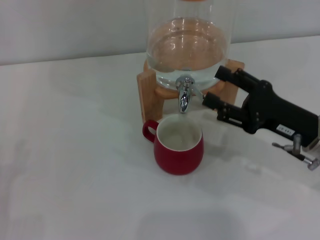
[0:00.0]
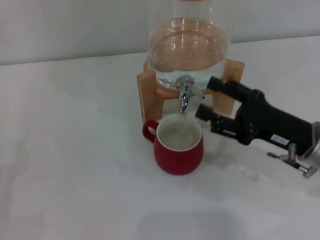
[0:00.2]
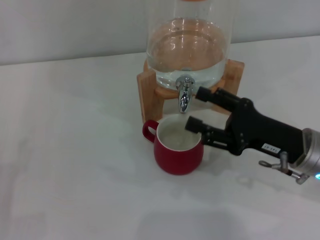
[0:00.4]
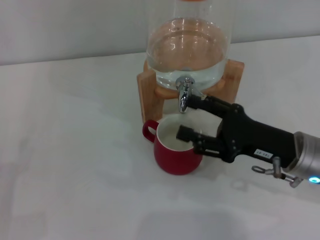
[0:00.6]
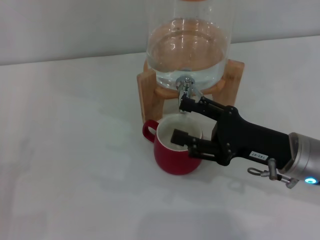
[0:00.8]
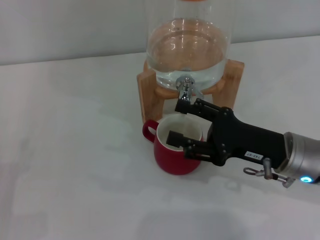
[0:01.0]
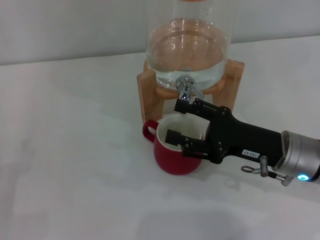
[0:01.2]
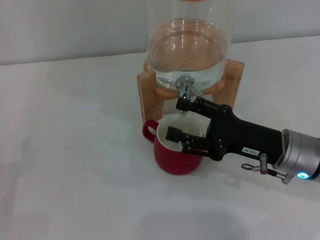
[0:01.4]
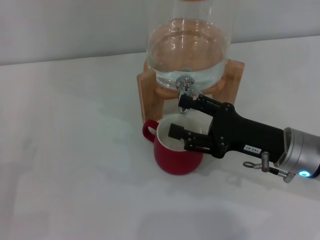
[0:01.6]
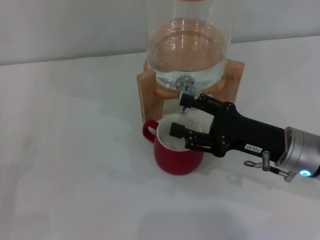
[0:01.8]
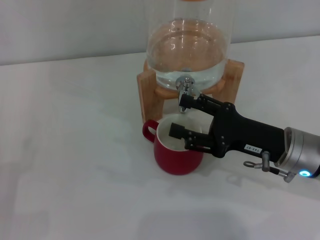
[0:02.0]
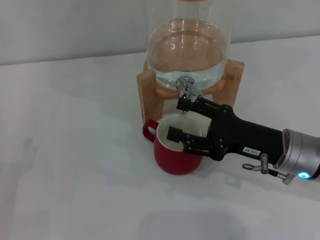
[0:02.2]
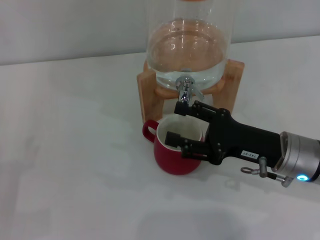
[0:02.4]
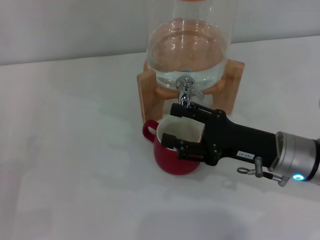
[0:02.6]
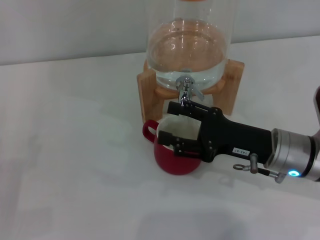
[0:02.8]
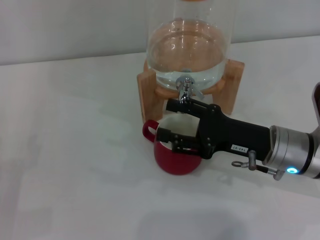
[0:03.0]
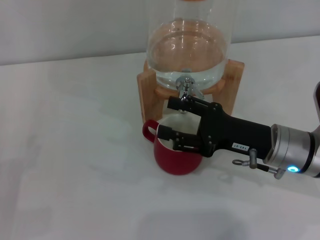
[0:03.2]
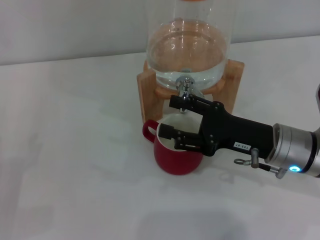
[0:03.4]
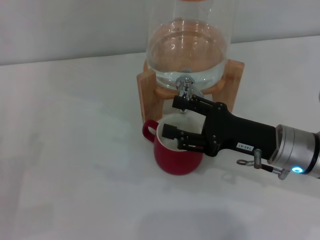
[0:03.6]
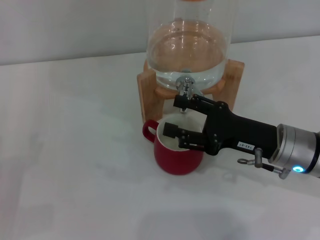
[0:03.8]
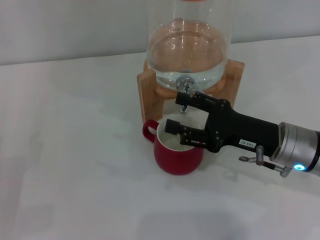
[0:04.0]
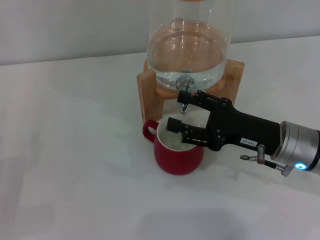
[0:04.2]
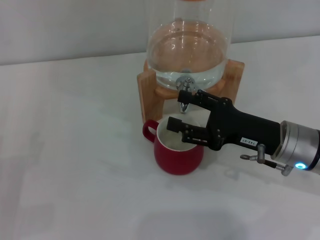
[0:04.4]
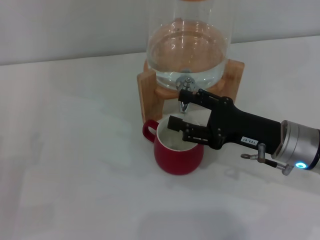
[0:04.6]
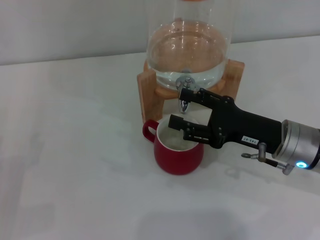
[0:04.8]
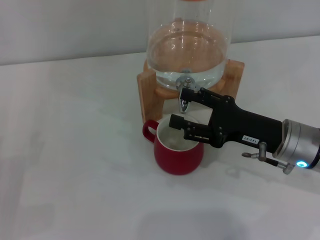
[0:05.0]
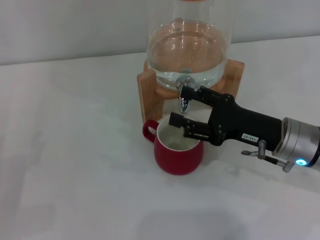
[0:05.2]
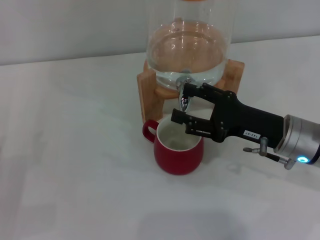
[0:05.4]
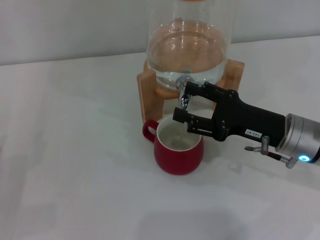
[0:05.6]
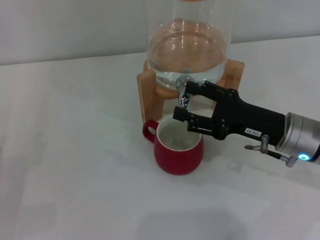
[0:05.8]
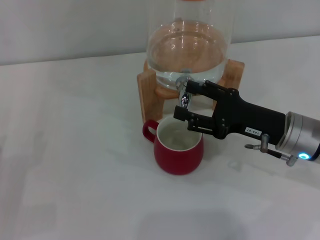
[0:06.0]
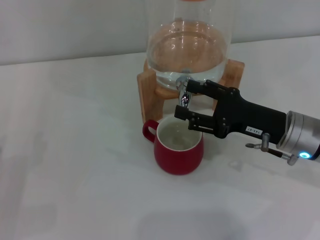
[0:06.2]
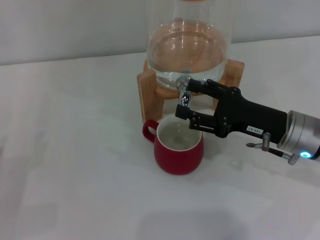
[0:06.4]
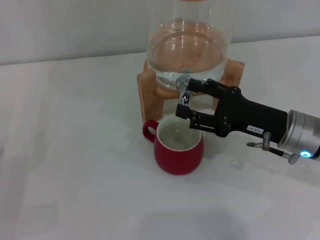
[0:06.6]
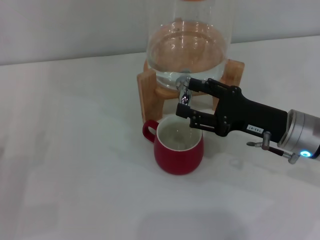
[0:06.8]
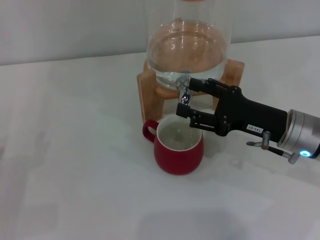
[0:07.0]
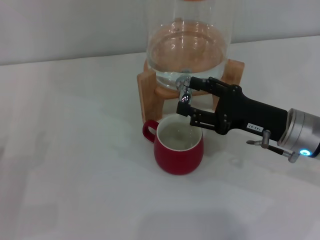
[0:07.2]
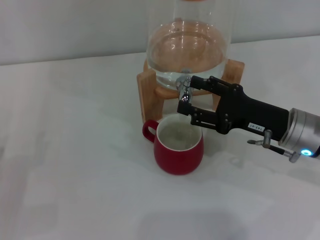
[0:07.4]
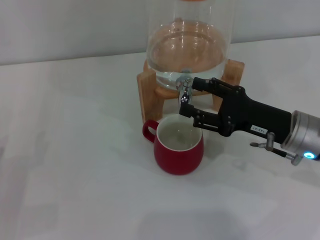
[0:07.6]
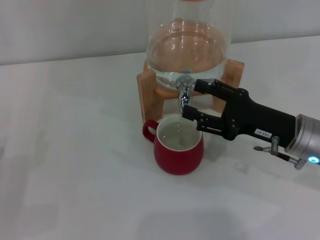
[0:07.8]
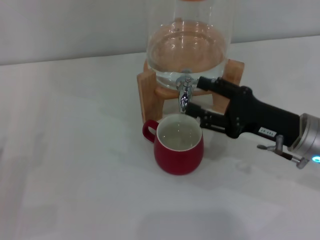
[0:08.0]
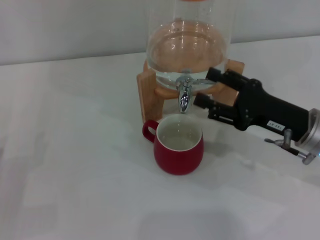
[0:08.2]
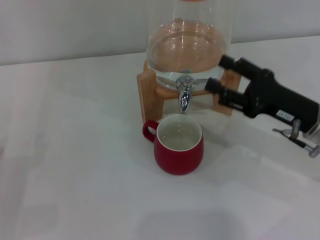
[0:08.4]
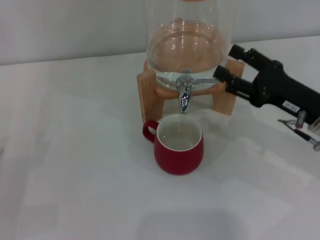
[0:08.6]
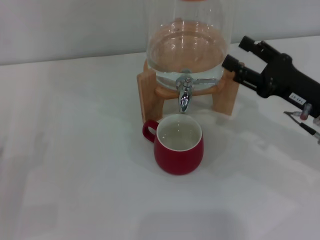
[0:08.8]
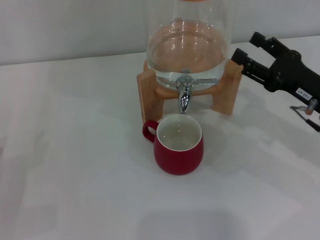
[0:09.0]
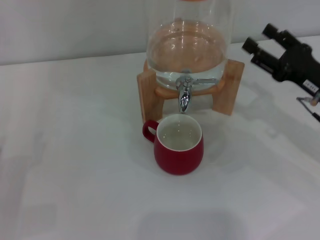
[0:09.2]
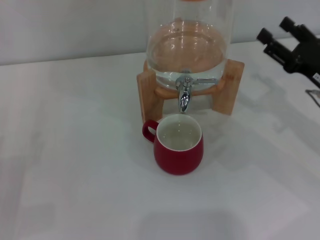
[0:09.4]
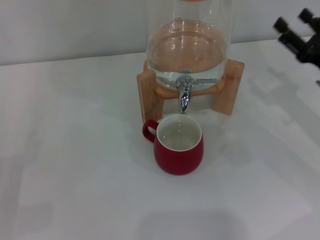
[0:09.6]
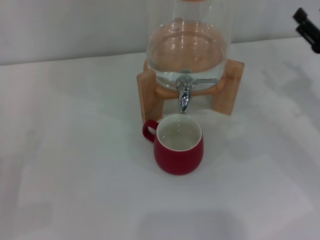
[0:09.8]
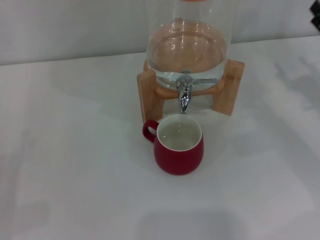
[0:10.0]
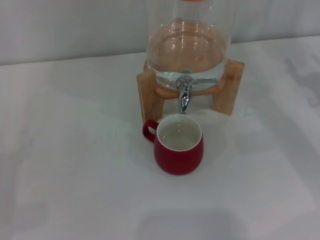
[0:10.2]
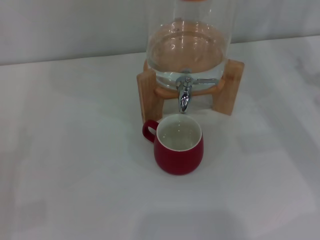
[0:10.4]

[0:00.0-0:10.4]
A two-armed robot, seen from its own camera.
Task of the whole recording: the left gripper pick up the red cup and place it horizontally under the faucet, the right gripper turn on the faucet to fill the cup, and then turn off the faucet.
Step, 0:00.0 to 0:07.8: Close the dispenser valve with the right gripper.
0:00.0 to 0:03.0: The grippers stay close to where they were, moving slightly.
0:03.0 to 0:04.4: Both grippers stay about where they are.
0:04.4 to 0:06.0: There are only small adjustments of the grippers.
0:06.0 to 0:07.4: Both grippers stay about where they are.
0:07.4 to 0:09.0: The right gripper shifts approximately 5 cm to the right.
0:09.0 to 0:10.4: The right gripper is displaced to the right by approximately 10 cm.
